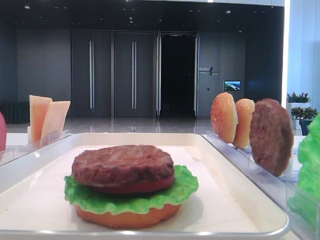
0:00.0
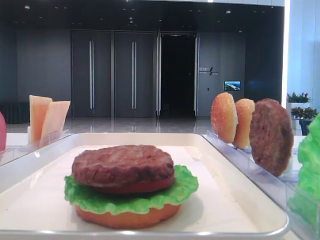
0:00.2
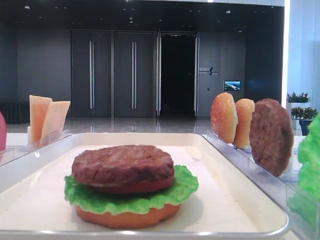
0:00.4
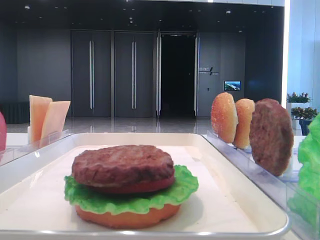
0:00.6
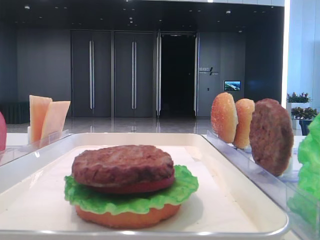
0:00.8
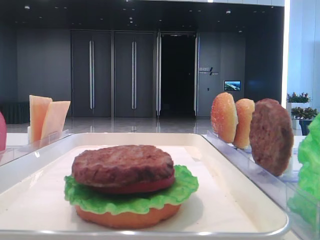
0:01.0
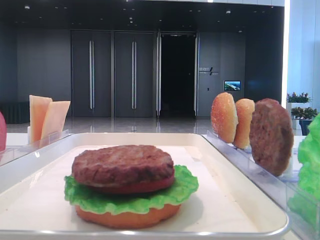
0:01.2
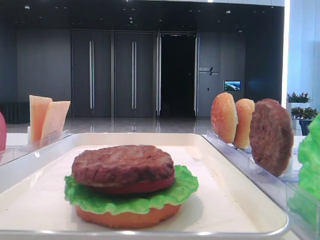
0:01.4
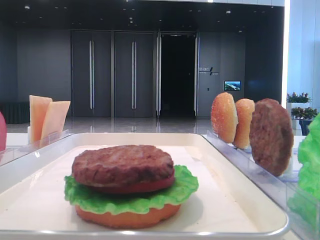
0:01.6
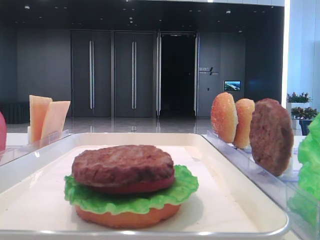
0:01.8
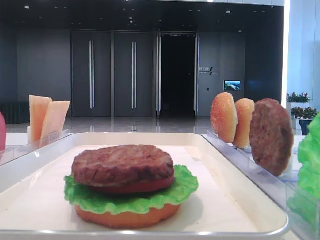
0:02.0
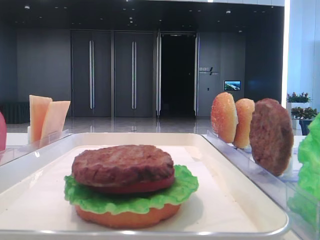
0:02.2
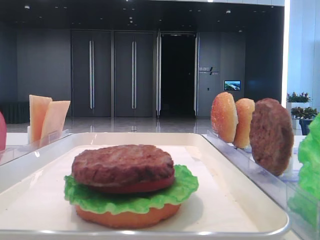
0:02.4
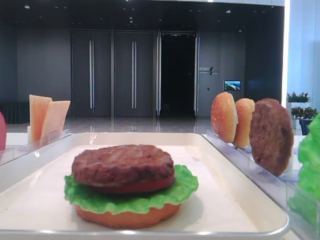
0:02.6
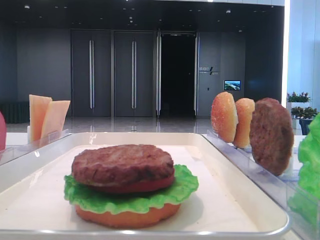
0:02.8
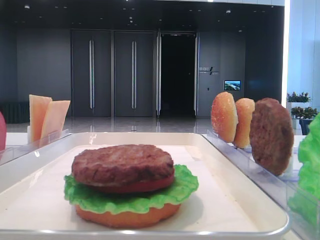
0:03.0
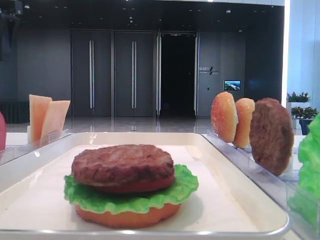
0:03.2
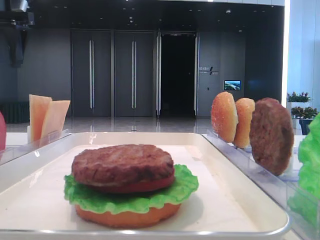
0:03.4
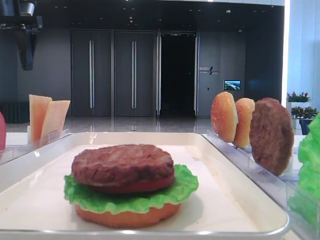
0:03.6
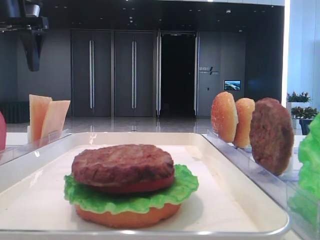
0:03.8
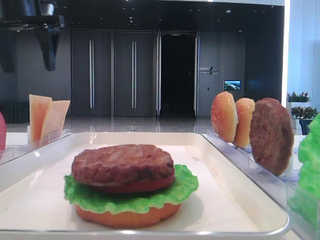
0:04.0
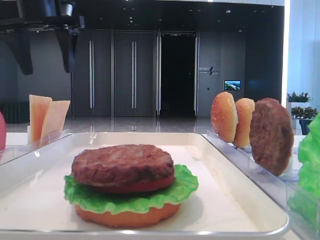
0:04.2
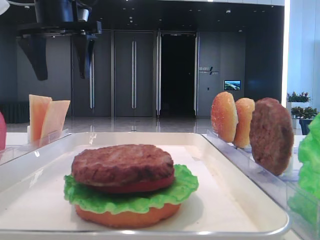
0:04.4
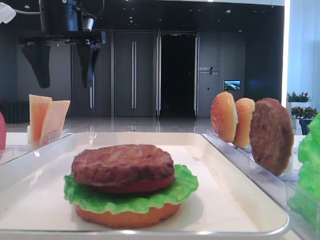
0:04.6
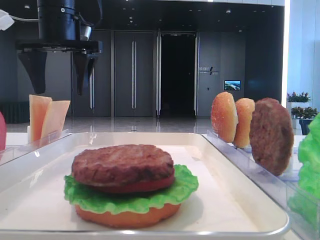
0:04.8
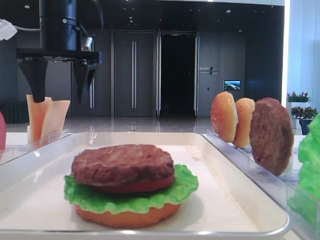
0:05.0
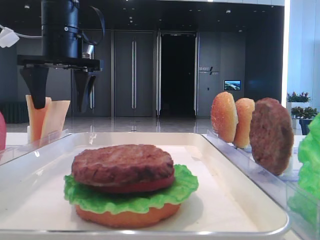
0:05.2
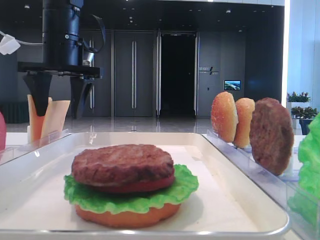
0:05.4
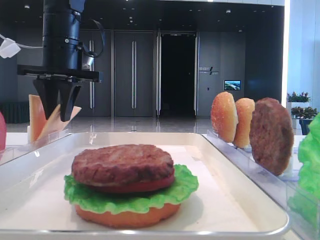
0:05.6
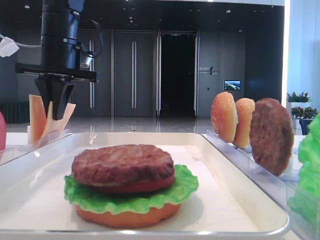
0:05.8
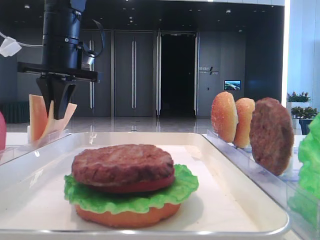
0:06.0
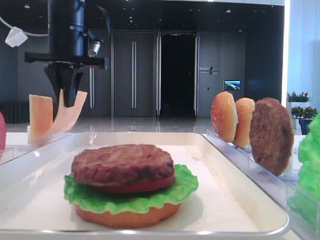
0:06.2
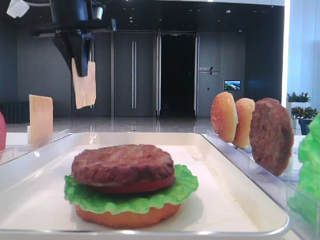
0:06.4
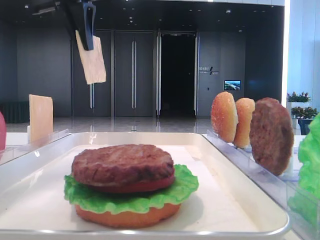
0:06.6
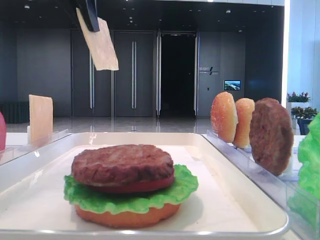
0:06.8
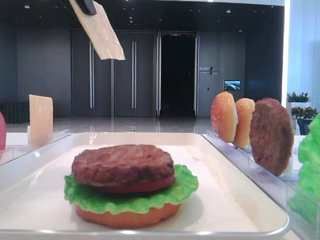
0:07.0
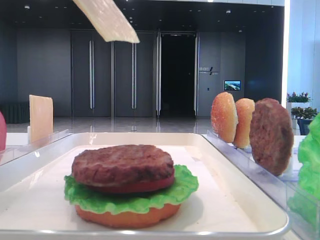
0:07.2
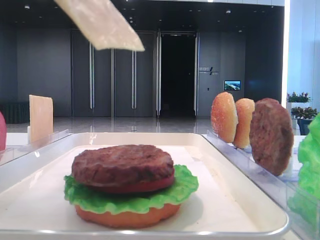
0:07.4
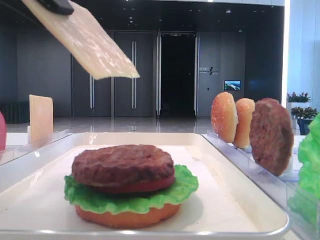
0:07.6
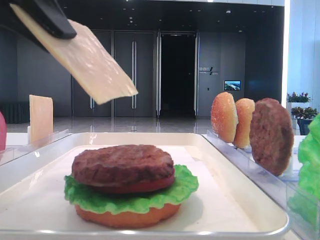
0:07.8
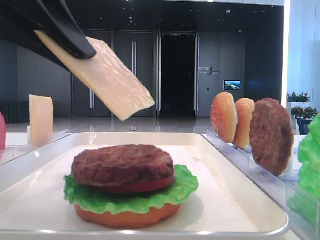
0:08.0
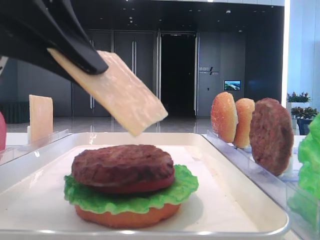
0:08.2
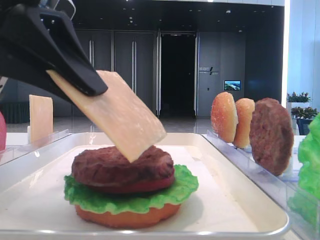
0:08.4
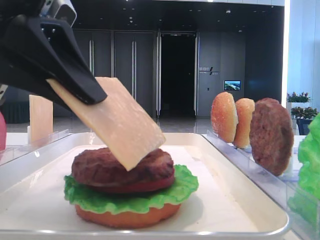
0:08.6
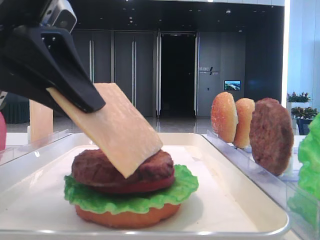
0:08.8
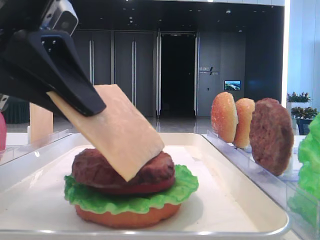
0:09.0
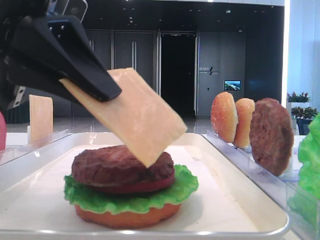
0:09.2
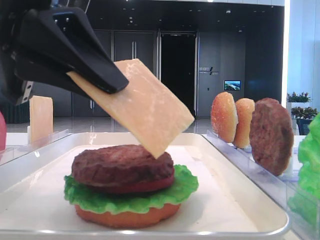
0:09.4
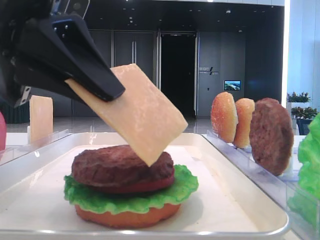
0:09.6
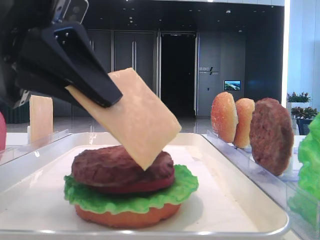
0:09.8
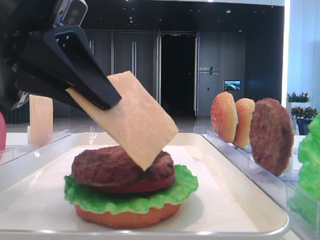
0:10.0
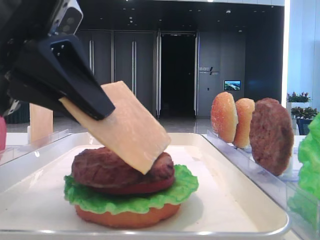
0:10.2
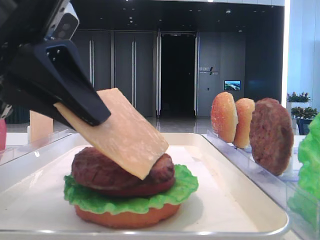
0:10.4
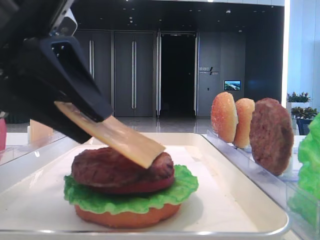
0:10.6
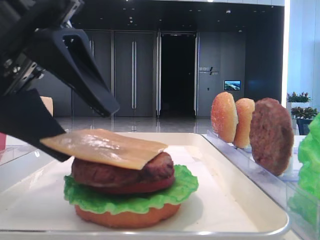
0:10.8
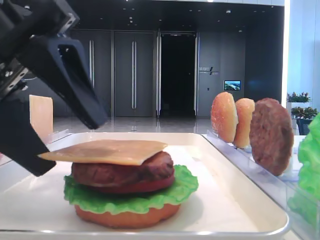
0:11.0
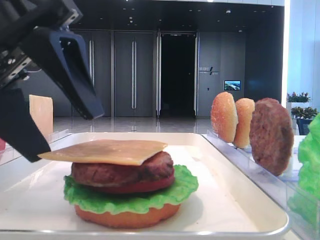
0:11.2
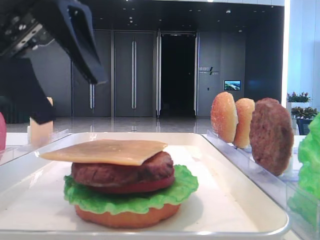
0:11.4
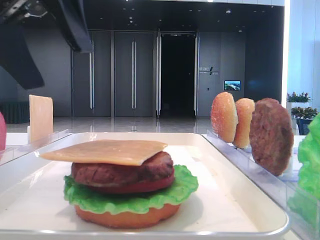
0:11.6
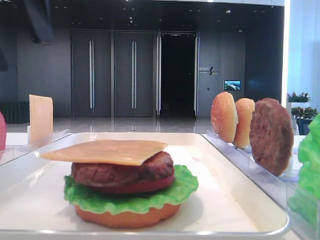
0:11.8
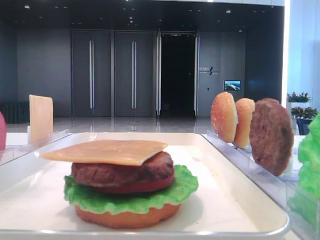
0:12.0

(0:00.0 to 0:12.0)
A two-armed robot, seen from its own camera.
Step, 0:00.0 - 0:05.8: Pick up the cheese slice with the left hand.
Step, 0:06.0 - 0:10.8: Place the cheese slice on the patty with the left hand.
0:01.6 - 0:03.0: The left gripper moves forward, roughly 35 cm.
0:03.0 - 0:04.4: The left gripper shifts approximately 15 cm to the right and forward.
0:04.4 - 0:06.0: The left gripper travels downward by approximately 5 cm, and closes up.
0:06.0 - 0:07.6: The left gripper travels backward by some 25 cm.
0:07.6 - 0:09.0: The left gripper shifts some 5 cm downward.
0:09.0 - 0:10.4: The grippers move only a little.
0:10.4 - 0:12.0: The left gripper travels upward and to the left by roughly 15 cm, and opens up.

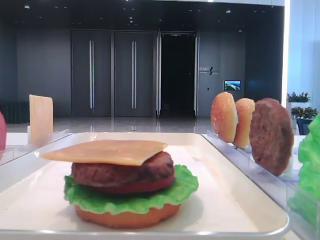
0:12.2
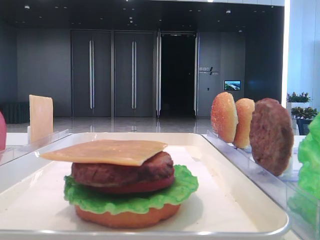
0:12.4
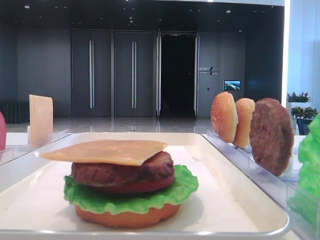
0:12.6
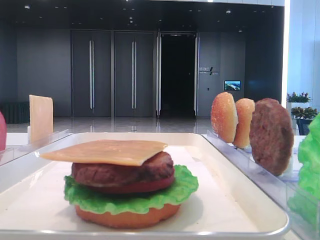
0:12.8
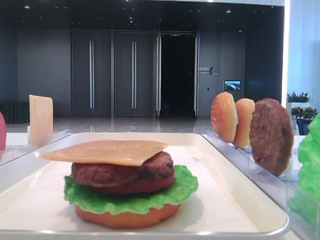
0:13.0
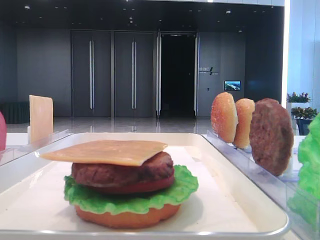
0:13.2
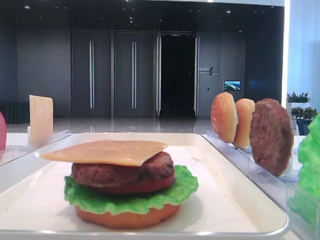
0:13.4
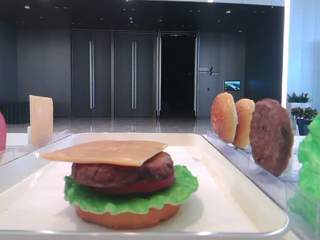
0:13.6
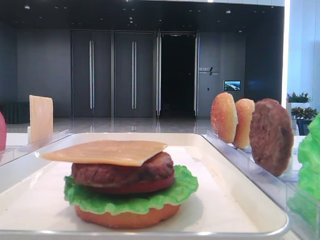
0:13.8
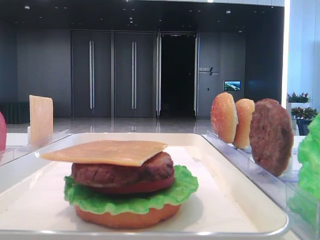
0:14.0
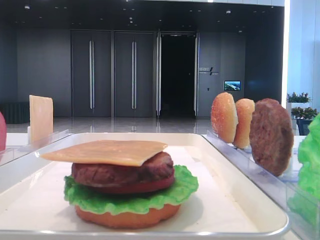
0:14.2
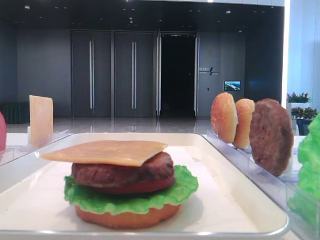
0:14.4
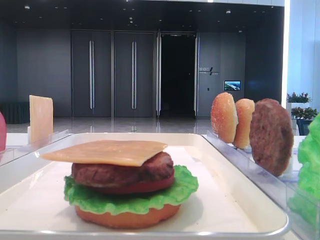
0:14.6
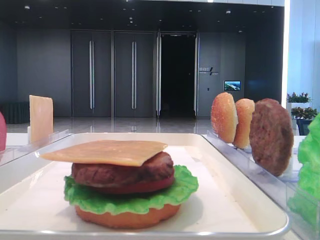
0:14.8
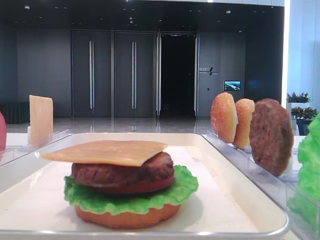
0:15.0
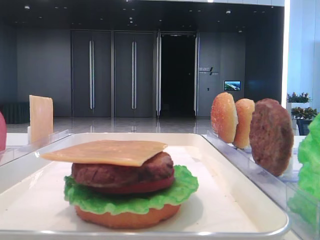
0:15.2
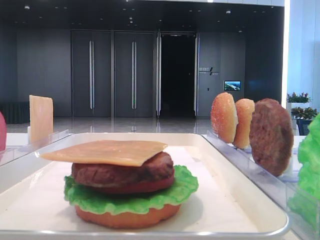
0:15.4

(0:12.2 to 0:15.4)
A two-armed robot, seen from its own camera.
0:13.8 - 0:15.4: Both grippers stay put.

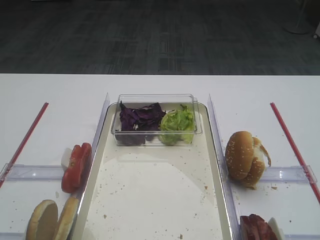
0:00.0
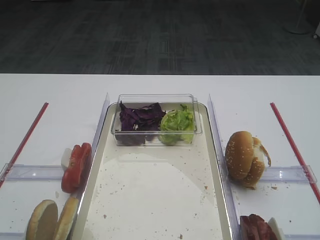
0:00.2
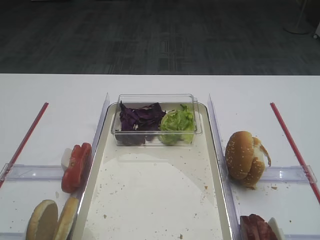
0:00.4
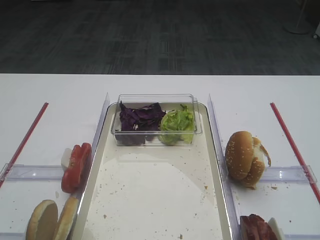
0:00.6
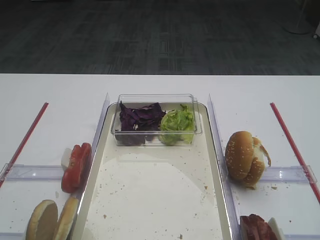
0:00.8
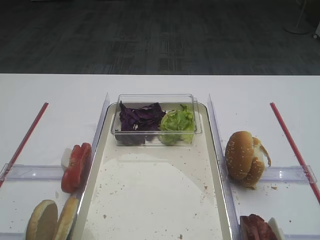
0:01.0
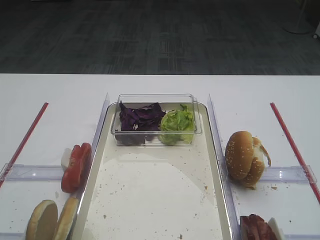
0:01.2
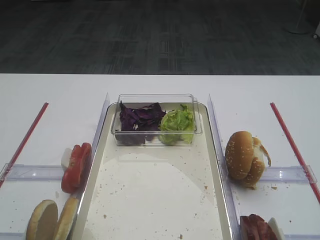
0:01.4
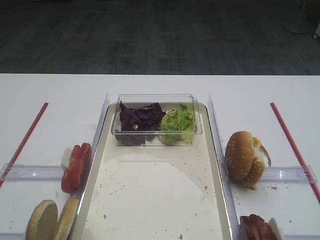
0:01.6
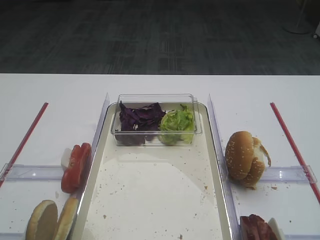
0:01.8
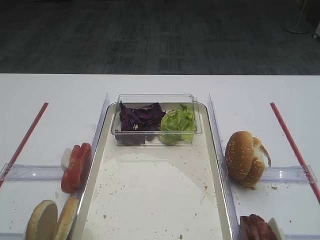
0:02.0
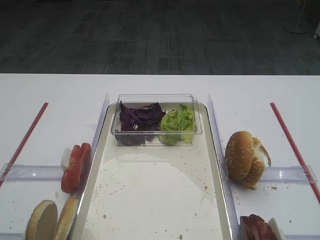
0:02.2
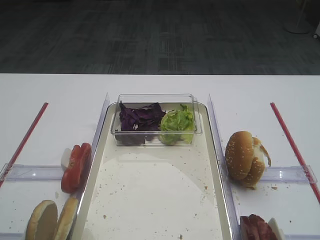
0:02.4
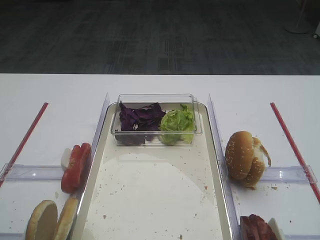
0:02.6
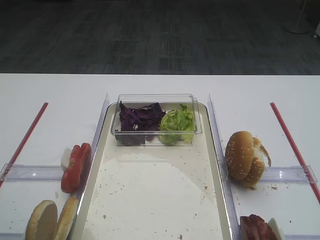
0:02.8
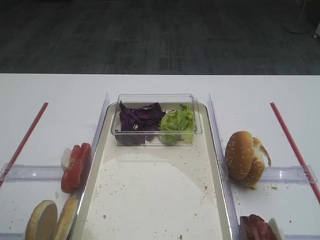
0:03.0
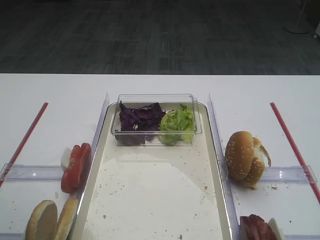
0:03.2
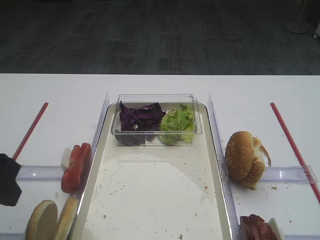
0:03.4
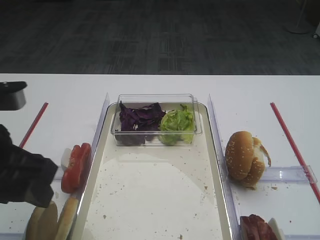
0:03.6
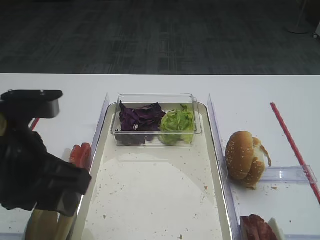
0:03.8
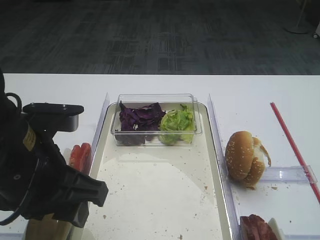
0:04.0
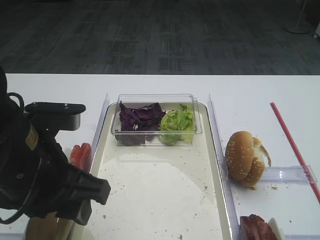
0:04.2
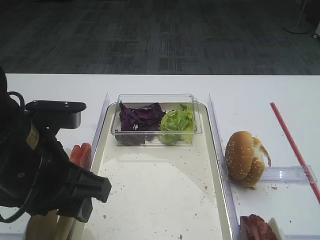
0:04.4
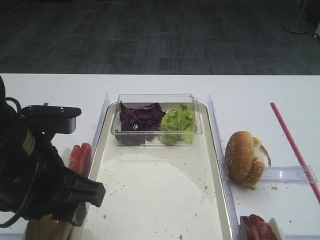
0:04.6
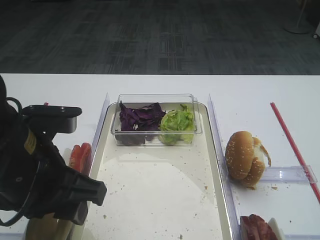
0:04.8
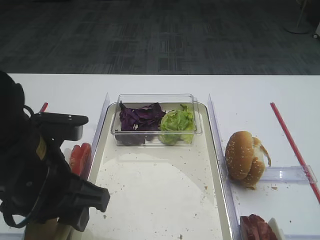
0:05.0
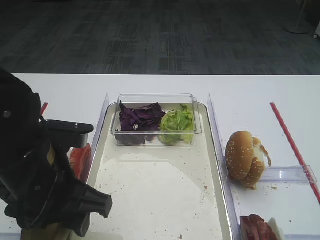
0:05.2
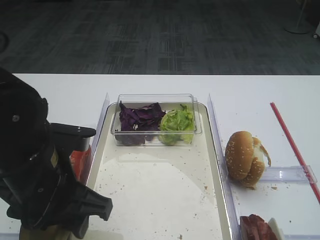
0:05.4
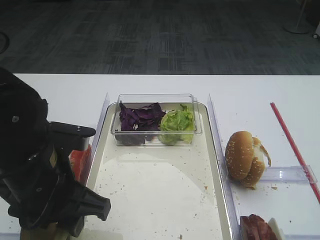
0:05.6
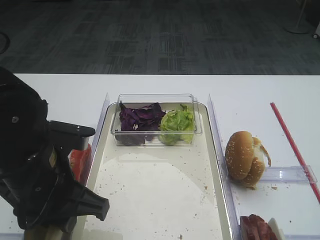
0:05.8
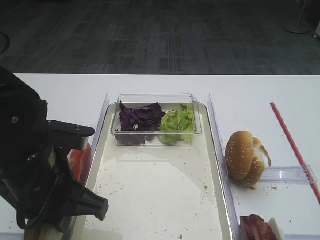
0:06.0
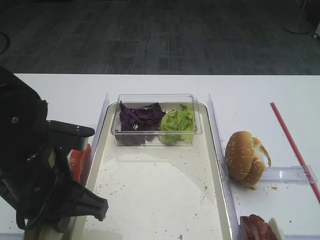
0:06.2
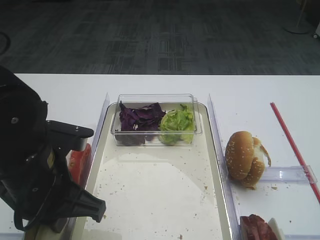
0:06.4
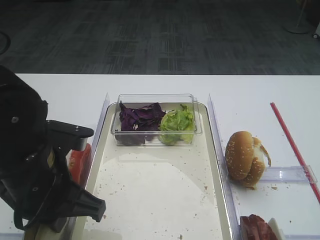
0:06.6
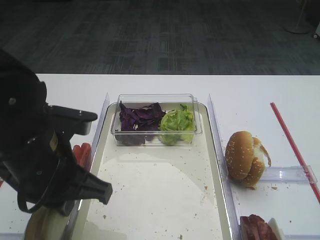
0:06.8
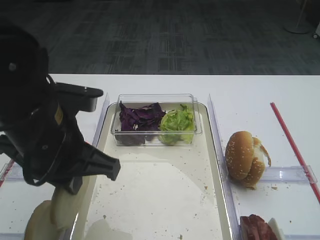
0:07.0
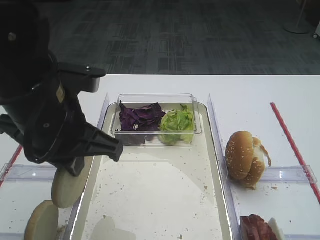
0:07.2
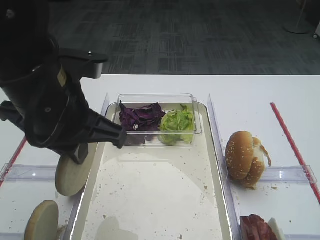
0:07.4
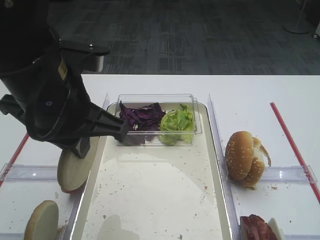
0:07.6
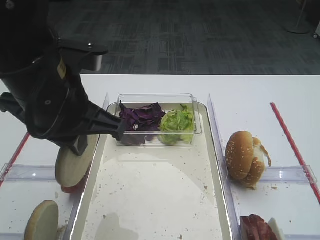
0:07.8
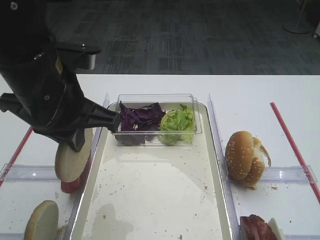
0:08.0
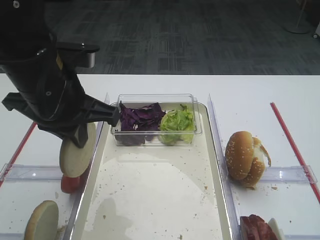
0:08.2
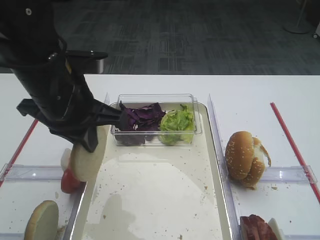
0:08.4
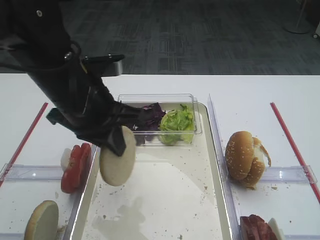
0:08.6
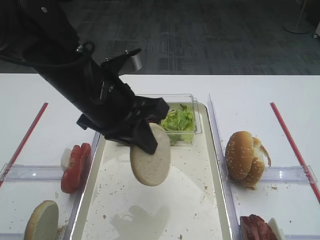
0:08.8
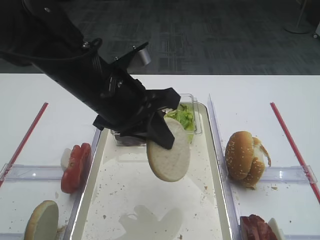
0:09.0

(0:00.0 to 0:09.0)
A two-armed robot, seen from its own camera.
Step, 0:00.0 - 0:07.4: Pick up the bread slice with the left gripper.
0:03.0 - 0:04.4: The left gripper heads to the right, covering roughly 15 cm.
0:04.4 - 0:06.0: The left gripper closes up.
0:06.0 - 0:07.6: The left gripper goes about 10 cm upward.
0:07.6 - 0:09.0: The left gripper ends up some 5 cm from where it was.
